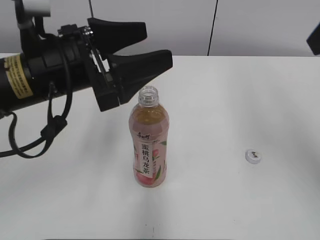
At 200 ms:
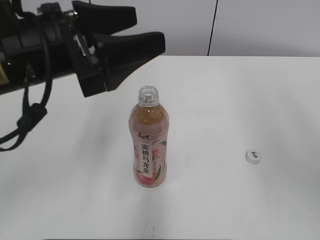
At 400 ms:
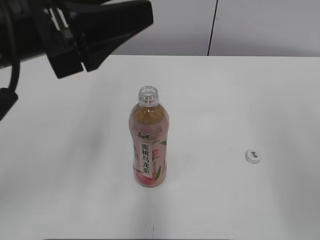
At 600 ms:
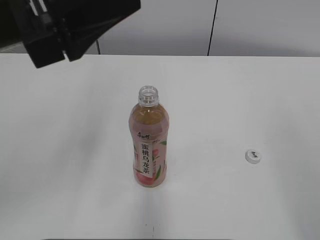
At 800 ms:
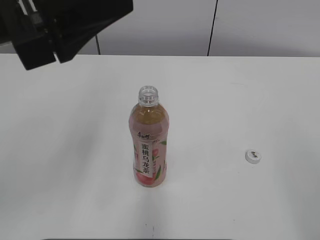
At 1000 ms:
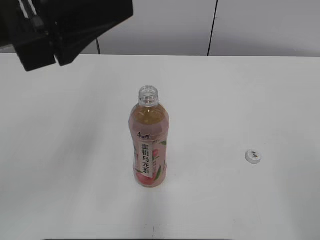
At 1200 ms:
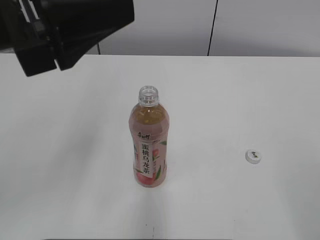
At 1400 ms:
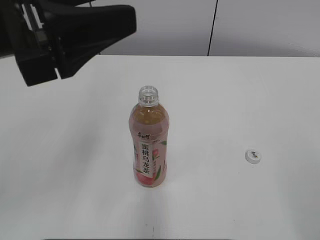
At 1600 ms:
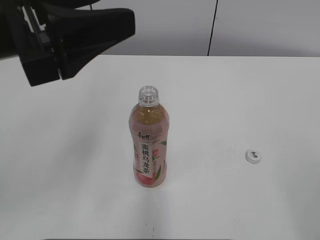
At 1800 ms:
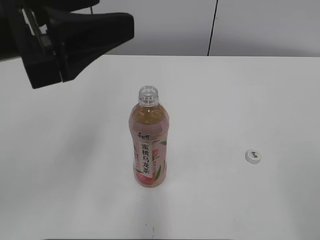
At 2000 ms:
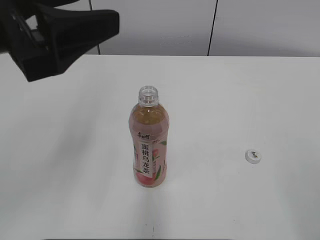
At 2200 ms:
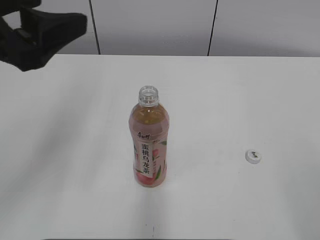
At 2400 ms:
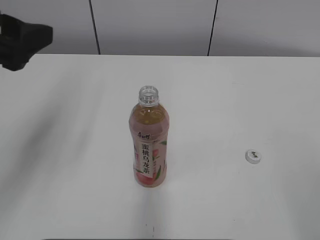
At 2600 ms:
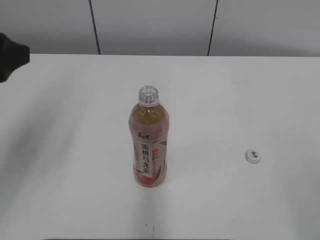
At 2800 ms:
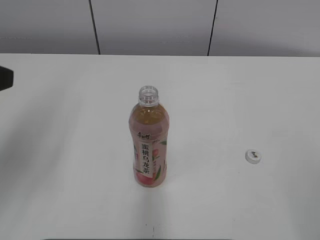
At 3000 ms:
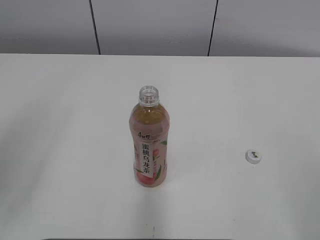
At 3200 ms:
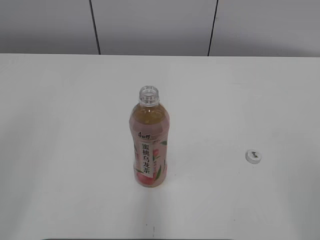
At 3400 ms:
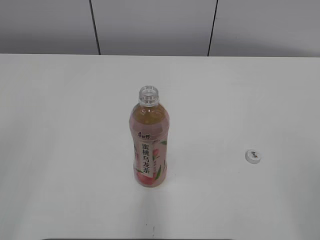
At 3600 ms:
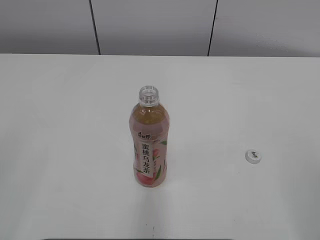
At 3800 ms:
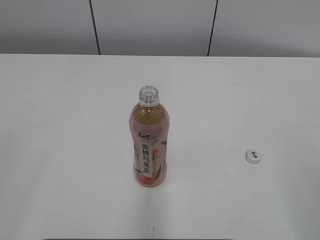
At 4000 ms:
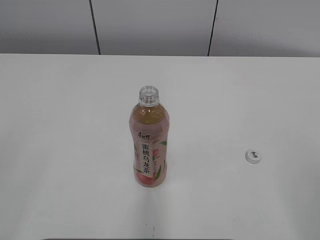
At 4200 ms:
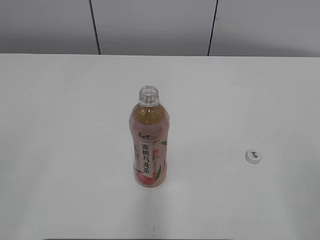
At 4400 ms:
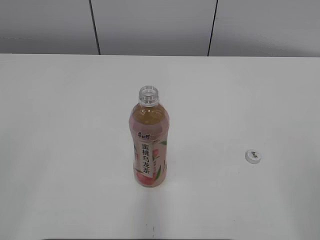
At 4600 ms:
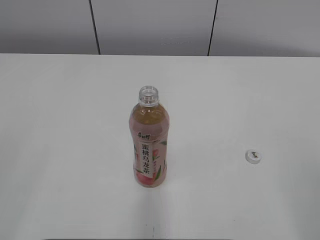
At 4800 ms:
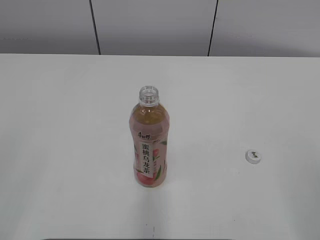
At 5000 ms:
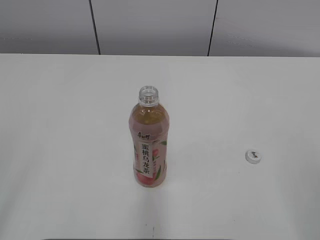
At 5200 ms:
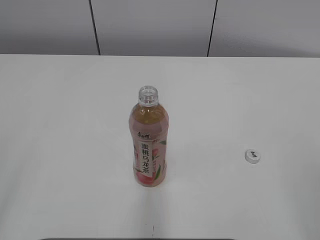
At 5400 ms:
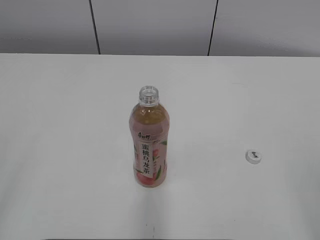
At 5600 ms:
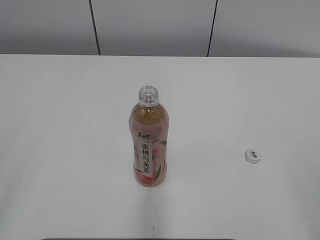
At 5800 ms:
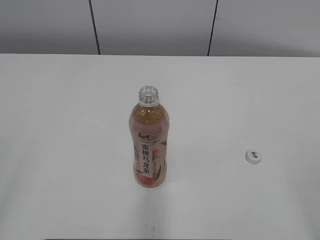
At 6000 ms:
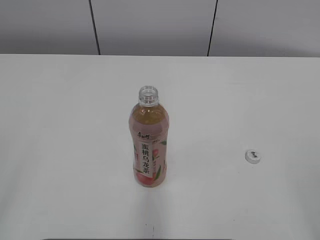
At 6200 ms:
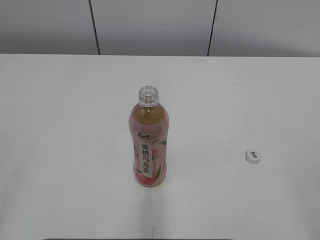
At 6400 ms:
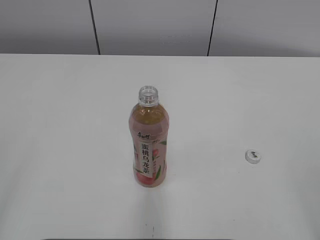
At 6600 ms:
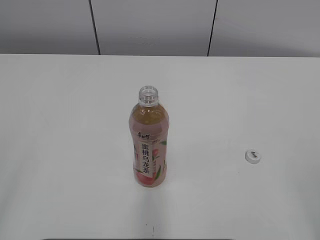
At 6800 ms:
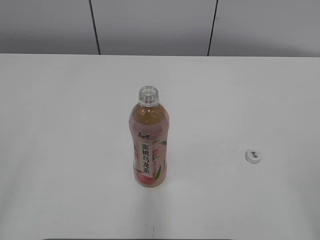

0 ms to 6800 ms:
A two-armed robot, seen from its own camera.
0 ms to 1400 ms: The right gripper moves backward and downward, approximately 25 cm; the left gripper heads upward and backward, covering roughly 10 cm.
1400 ms to 2800 ms: The left gripper moves to the left, some 10 cm.
2800 ms to 4000 ms: The left gripper heads backward, covering some 15 cm, and closes.

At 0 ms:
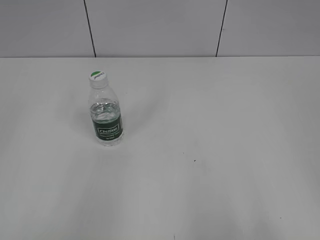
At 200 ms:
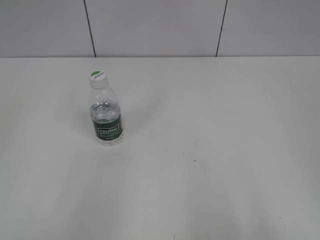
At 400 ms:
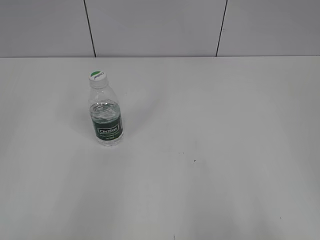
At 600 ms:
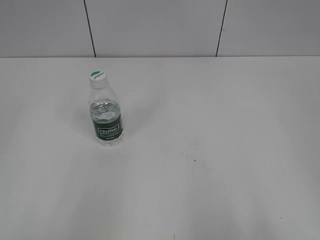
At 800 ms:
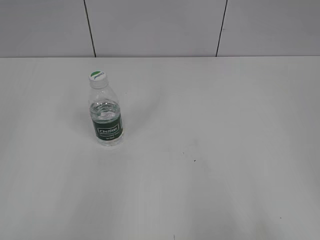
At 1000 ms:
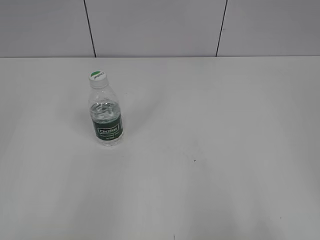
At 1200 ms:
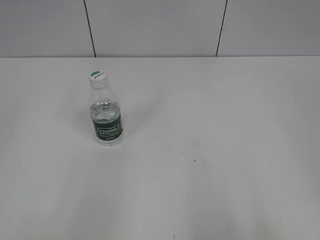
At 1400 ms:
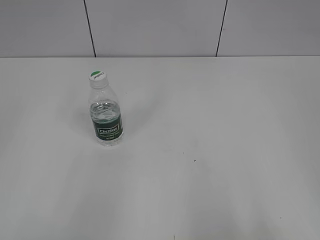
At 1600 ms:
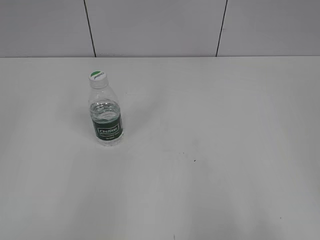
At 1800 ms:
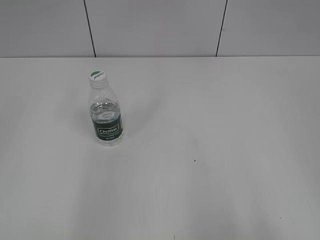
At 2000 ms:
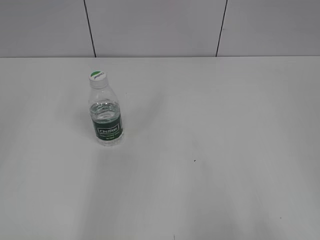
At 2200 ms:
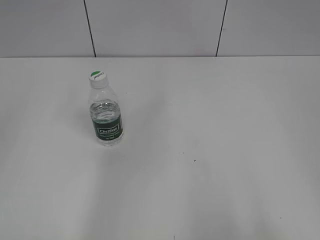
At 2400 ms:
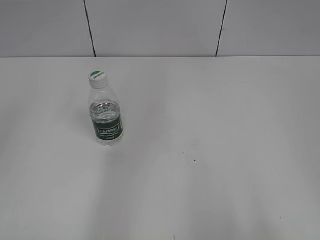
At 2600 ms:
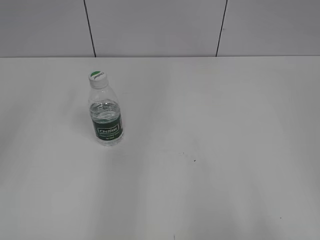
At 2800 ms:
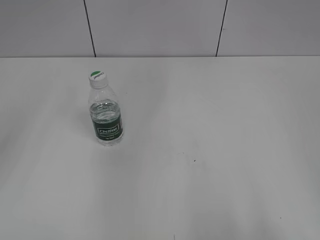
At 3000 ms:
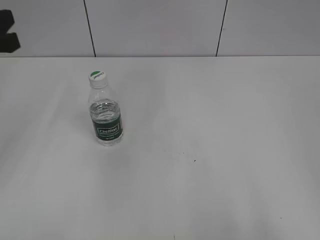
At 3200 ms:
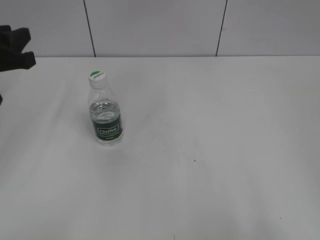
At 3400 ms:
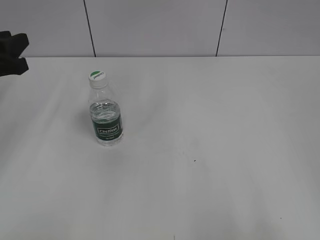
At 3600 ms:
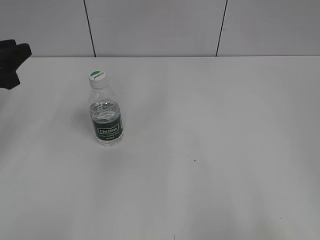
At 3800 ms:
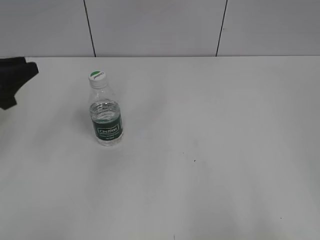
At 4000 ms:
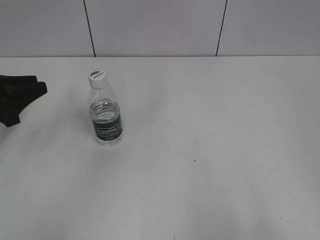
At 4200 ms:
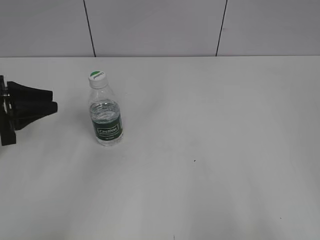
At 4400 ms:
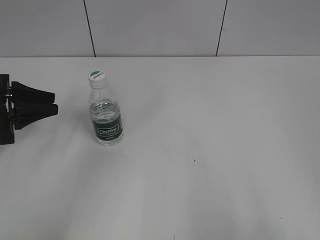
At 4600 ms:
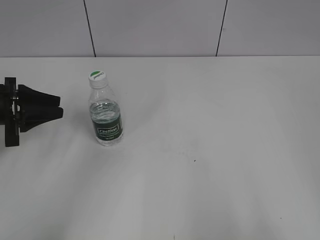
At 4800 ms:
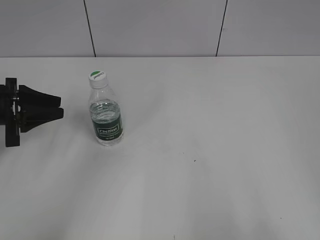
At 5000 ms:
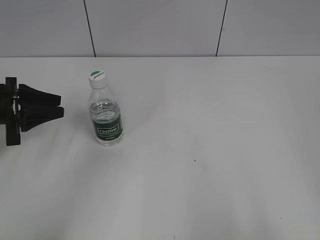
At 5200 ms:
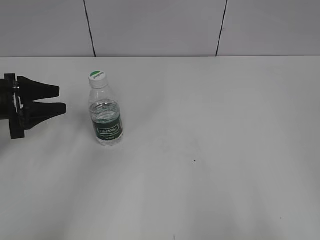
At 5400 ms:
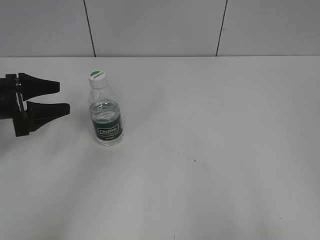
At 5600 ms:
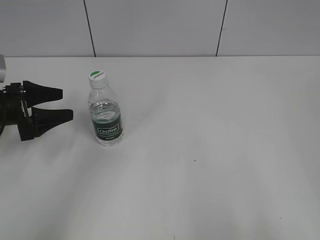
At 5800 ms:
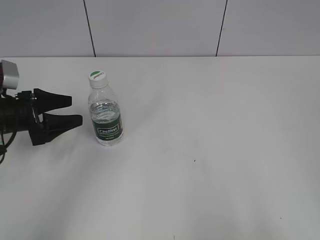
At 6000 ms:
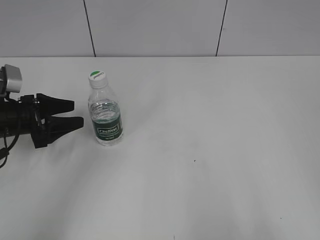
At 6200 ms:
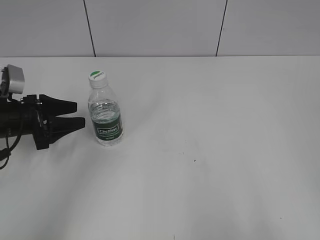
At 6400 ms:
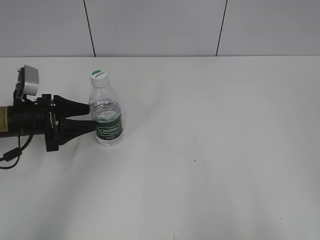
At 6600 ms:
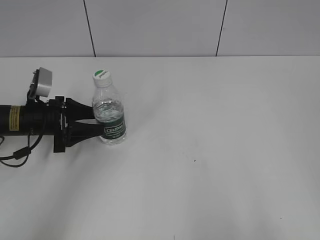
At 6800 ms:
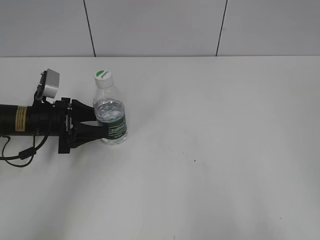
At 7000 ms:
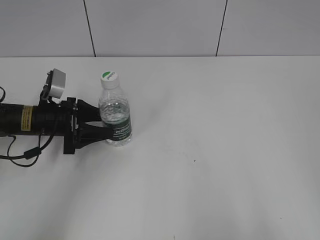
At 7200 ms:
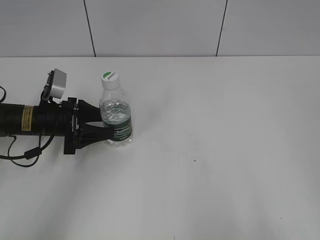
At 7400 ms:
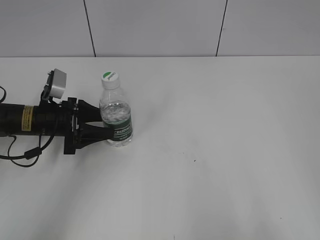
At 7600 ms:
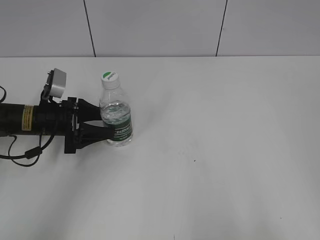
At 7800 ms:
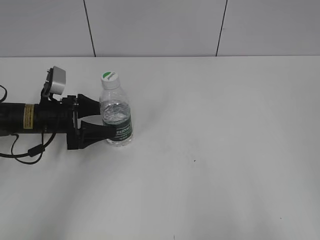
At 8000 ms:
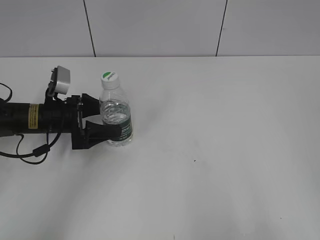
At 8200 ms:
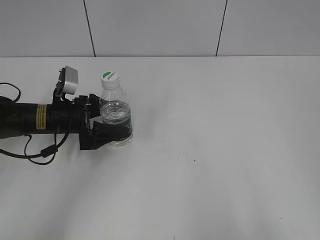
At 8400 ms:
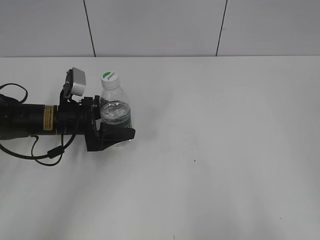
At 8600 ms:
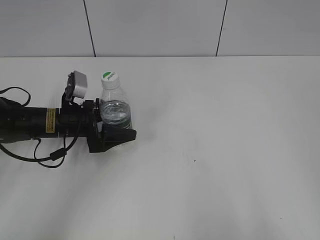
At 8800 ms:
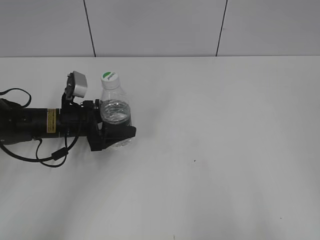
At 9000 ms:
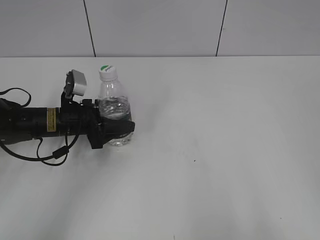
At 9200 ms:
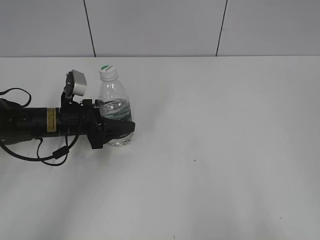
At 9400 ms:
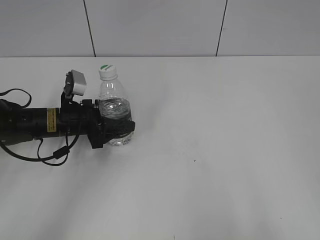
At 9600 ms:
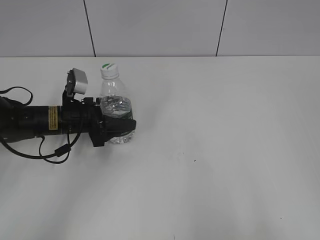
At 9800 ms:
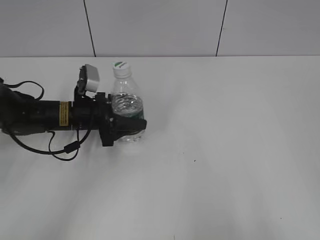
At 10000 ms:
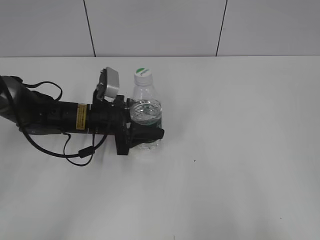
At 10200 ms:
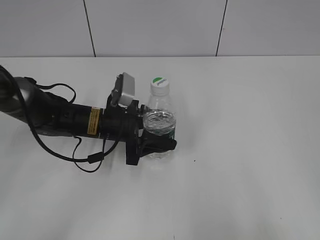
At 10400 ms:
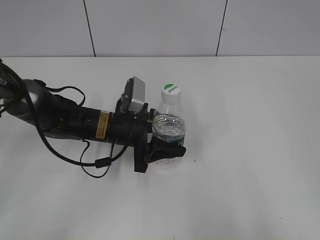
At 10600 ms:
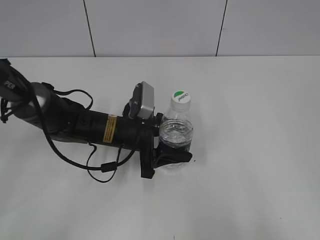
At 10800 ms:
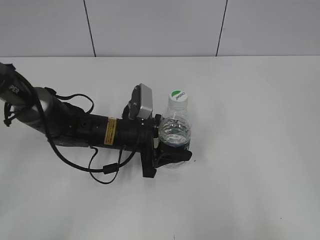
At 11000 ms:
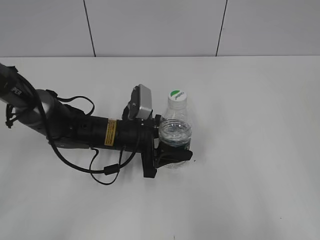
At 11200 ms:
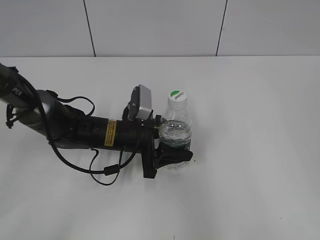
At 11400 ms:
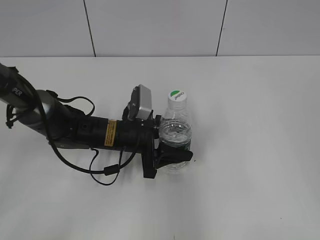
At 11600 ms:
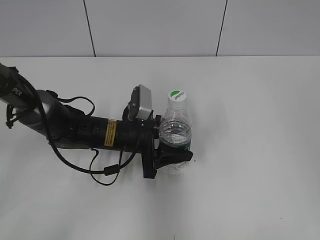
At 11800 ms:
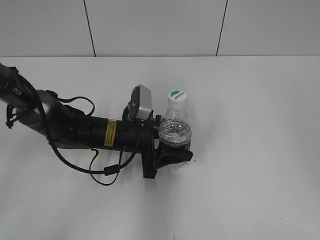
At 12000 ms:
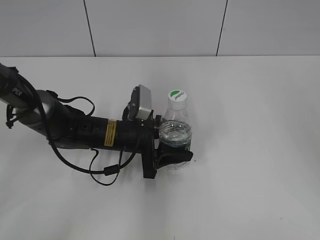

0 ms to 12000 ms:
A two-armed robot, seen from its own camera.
Step, 0 ms to 8800 ms: Grasp the bottle and move it to the center of the table with the left gripper.
Step, 9200 ms to 10800 ms: Lift the bottle and move it to the center of the table with the left gripper.
1600 ms to 3000 ms: The left gripper is displaced forward by some 25 cm.
3000 ms to 4400 ms: The left gripper goes approximately 10 cm downward.
4400 ms to 6000 ms: The left gripper is displaced downward by approximately 5 cm, and opens up.
6000 ms to 7600 ms: The left gripper moves to the right, approximately 5 cm.
7600 ms to 9000 ms: The left gripper opens, then closes again.
9000 ms to 10400 ms: The left gripper shifts about 10 cm to the right.
10400 ms to 12000 ms: The right gripper goes some 25 cm forward.

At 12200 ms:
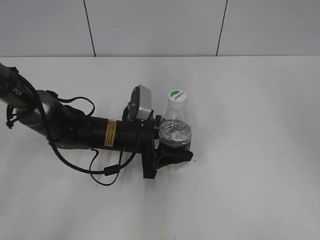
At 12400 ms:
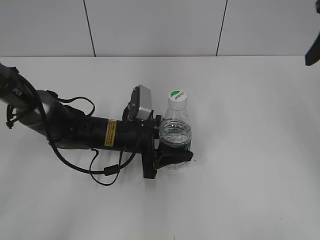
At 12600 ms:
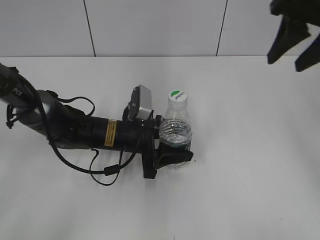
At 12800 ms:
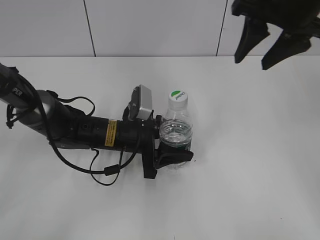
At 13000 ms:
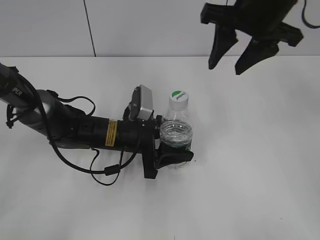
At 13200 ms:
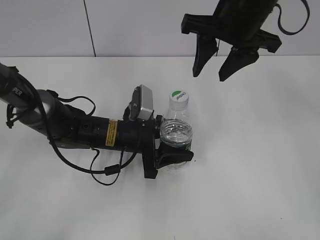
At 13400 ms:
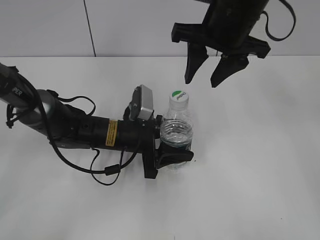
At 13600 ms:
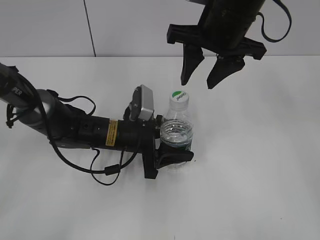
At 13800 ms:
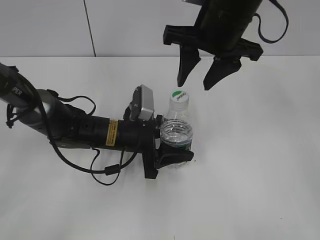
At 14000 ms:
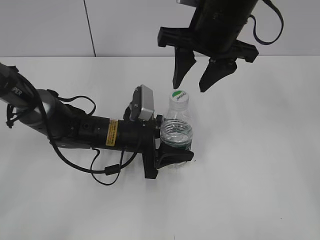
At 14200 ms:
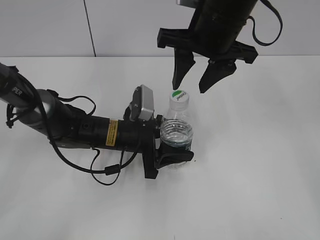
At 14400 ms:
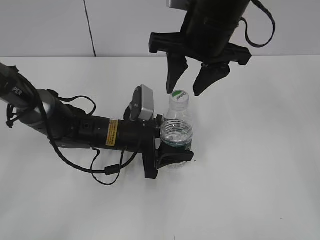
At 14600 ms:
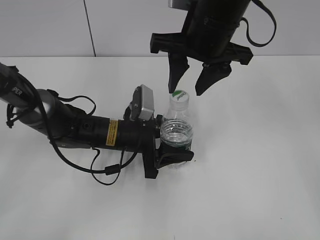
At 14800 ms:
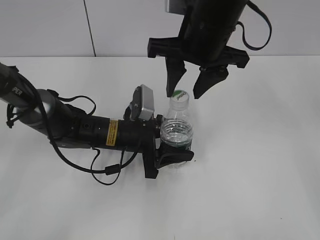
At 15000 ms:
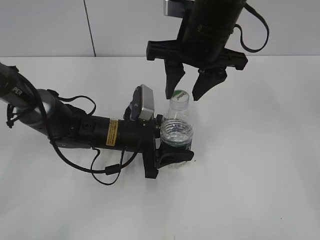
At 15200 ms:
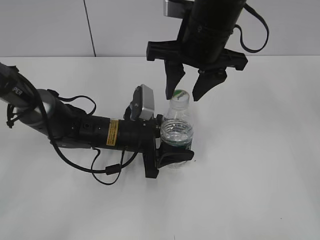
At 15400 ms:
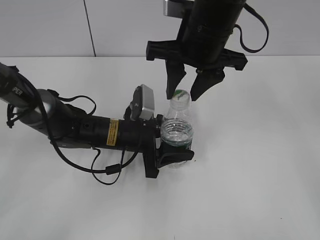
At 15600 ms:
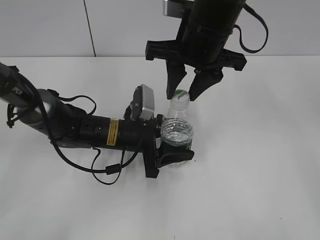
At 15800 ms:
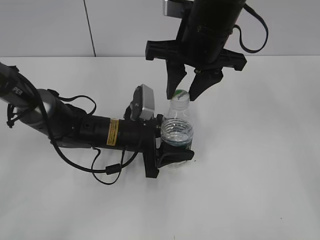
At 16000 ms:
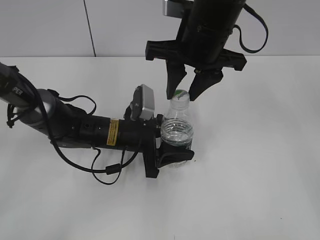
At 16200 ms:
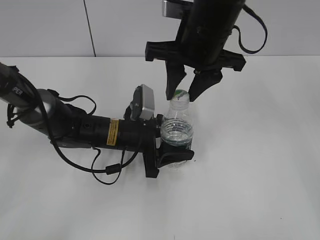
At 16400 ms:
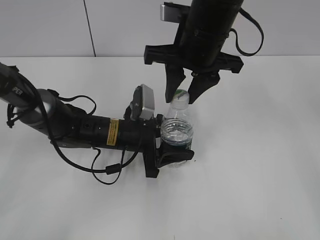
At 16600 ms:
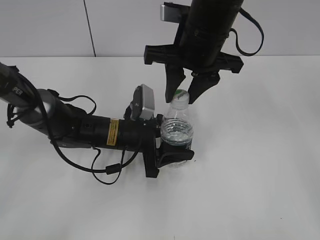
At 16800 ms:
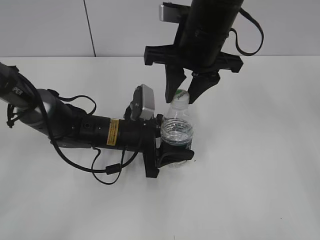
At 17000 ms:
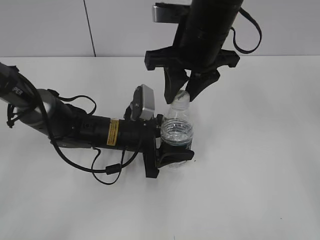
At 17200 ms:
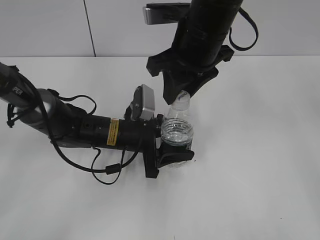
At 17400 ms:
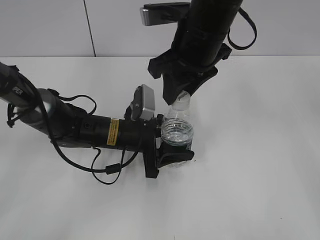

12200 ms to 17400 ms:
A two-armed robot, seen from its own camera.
12200 ms to 14000 ms: The right gripper heads to the left, covering some 20 cm.
14000 ms to 15600 ms: The right gripper closes up.
